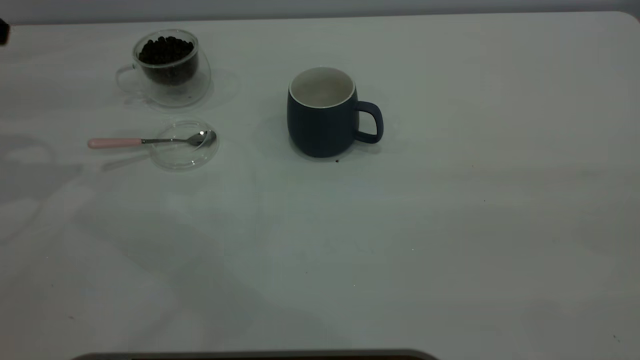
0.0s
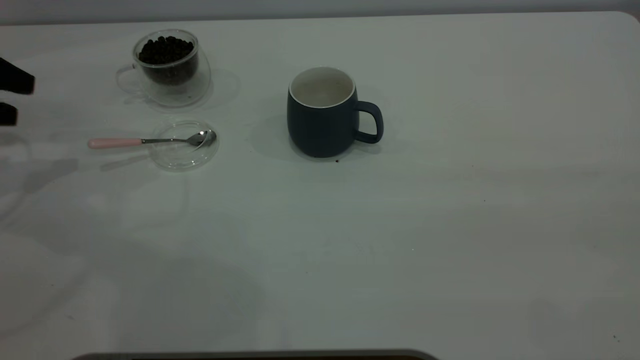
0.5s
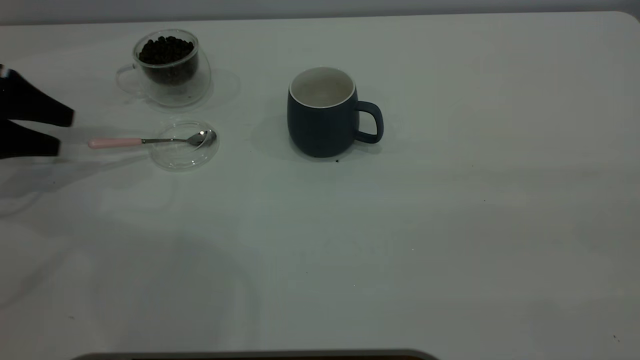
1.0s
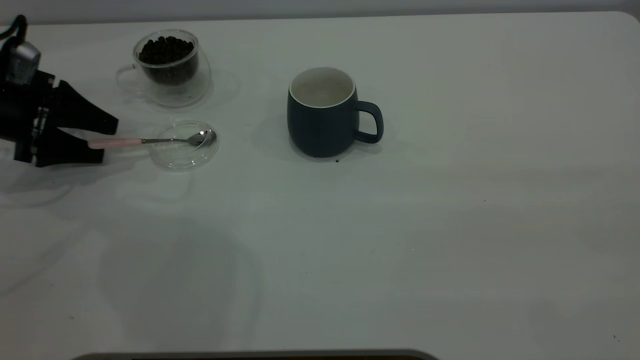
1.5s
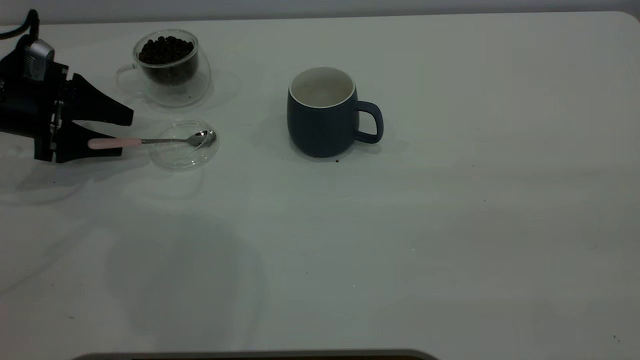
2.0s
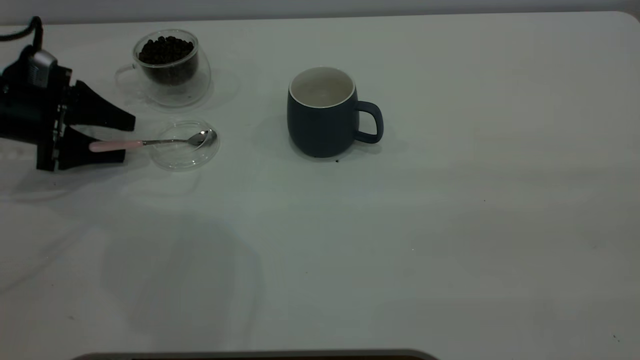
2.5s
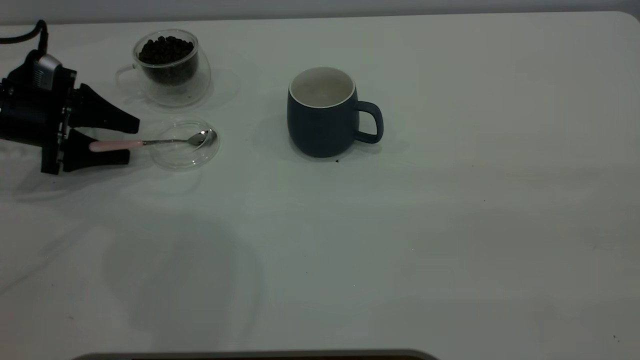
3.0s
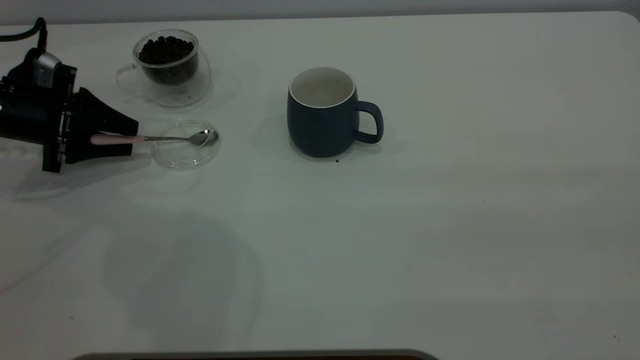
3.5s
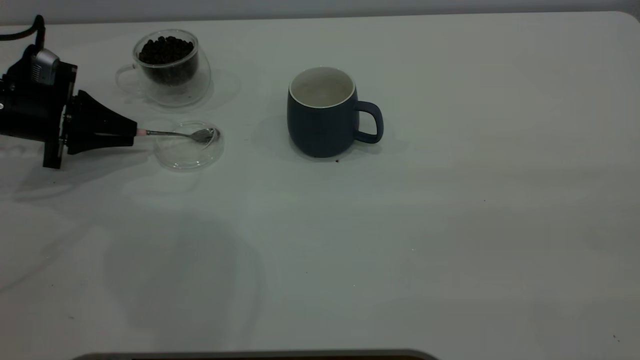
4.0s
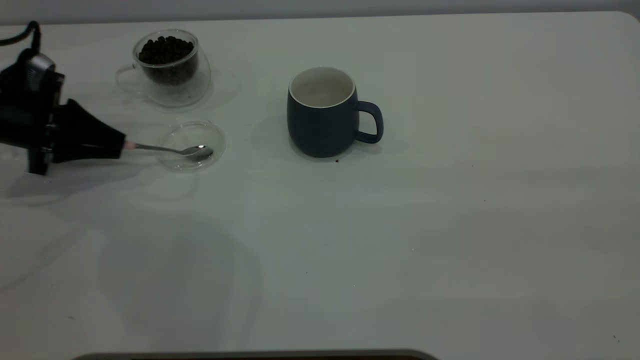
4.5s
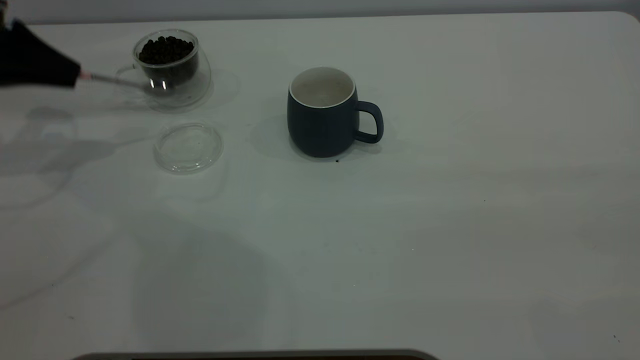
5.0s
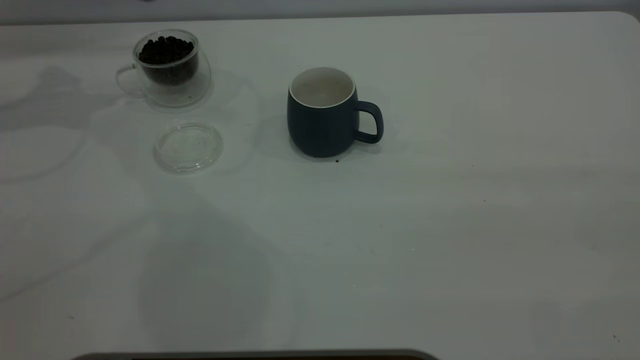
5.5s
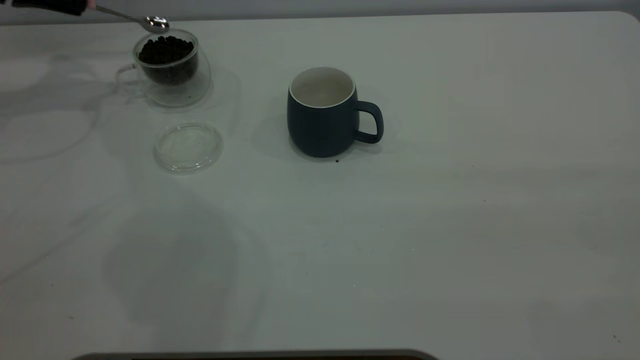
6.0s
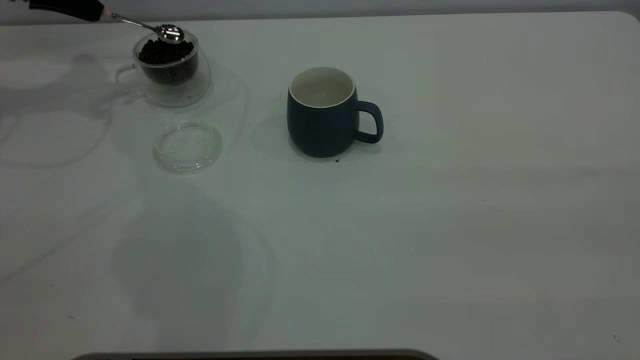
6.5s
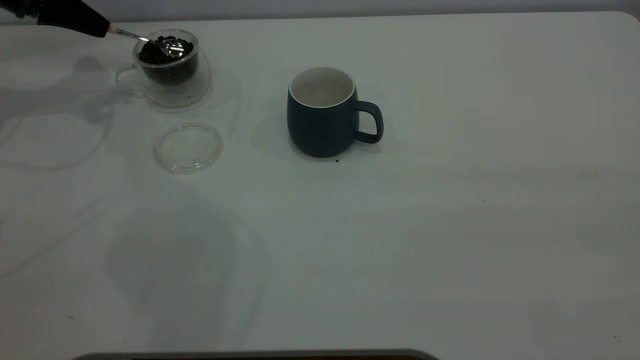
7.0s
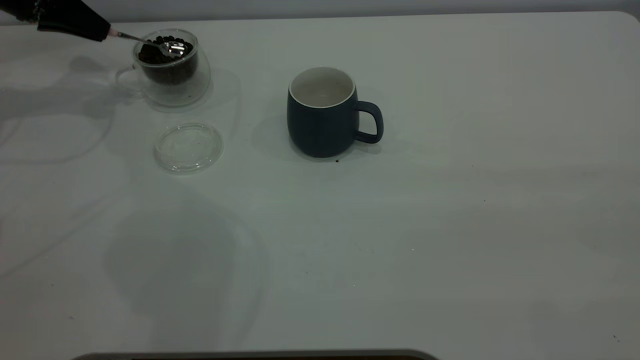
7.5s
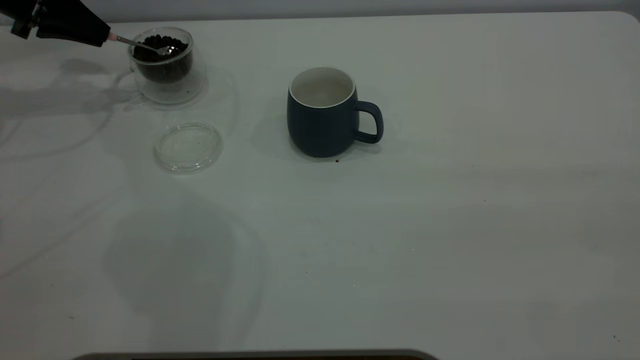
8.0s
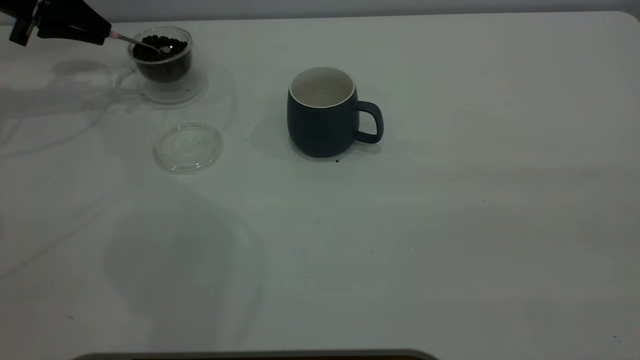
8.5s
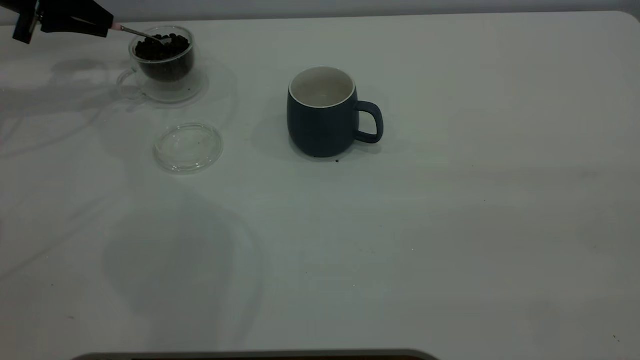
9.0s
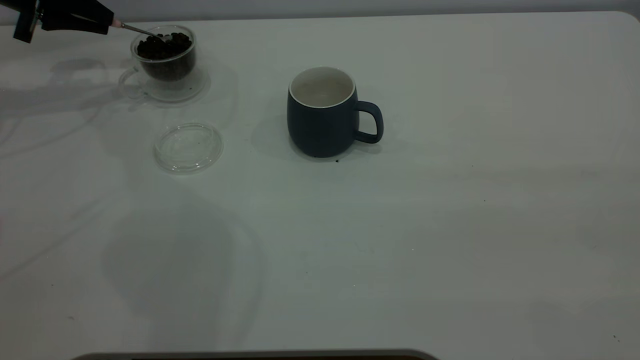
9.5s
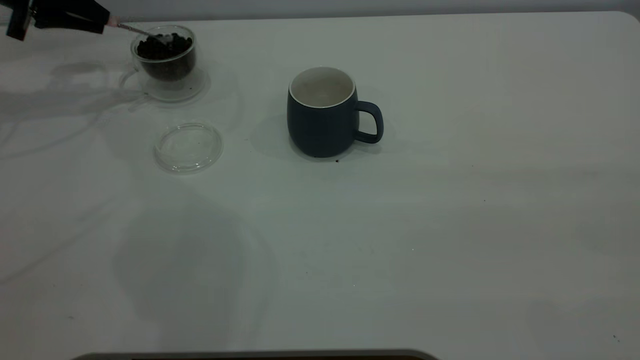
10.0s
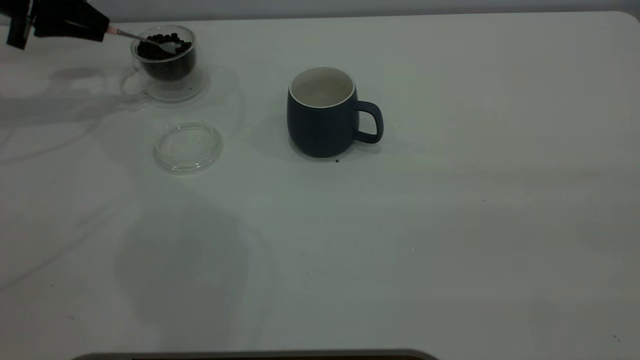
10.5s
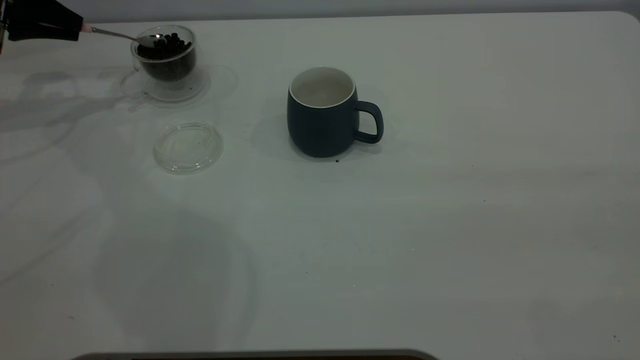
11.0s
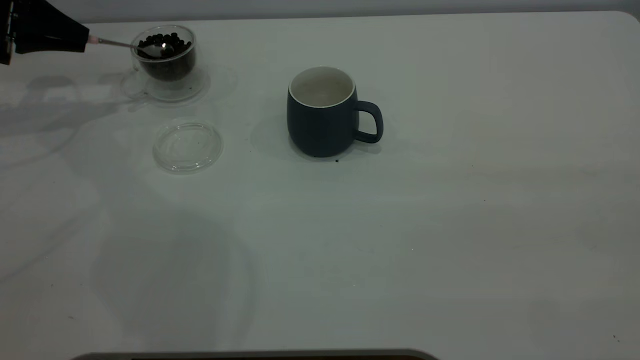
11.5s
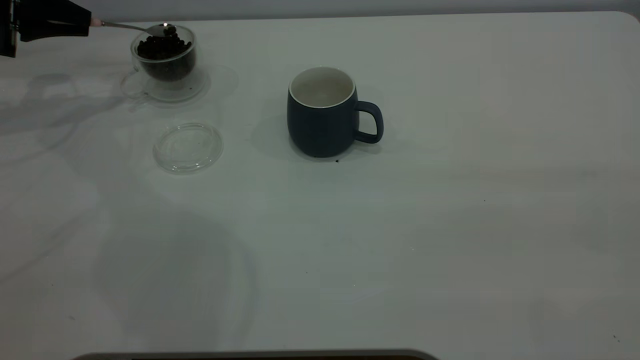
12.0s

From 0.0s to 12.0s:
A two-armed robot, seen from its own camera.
Task of the whole recording: the right gripper place the grey cup in the center of the table, the left gripper take the pink spoon from the cup lid and scoop out the coffee beans from the coffee cup and put them into the grey cup, the left gripper put the spoon back into the cup lid.
Step, from 0.0s to 4.5s: Pick up the spoon.
From 0.0s to 2.0s: The left gripper goes about 15 cm downward.
From 2.0s to 4.0s: The left gripper closes.
From 4.0s to 6.0s: The left gripper travels upward and forward by approximately 20 cm.
From 6.0s to 8.0s: The grippers make only small movements.
From 8.0s to 10.0s: There are only small adjustments of the grippers.
From 10.0s to 12.0s: The grippers stay close to where they were, moving slightly.

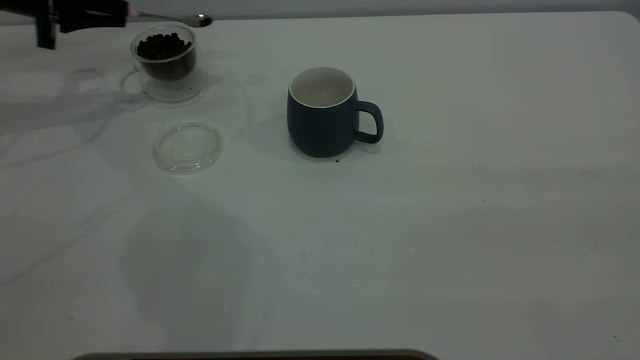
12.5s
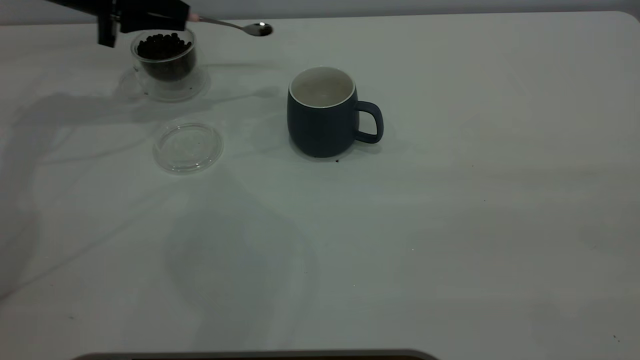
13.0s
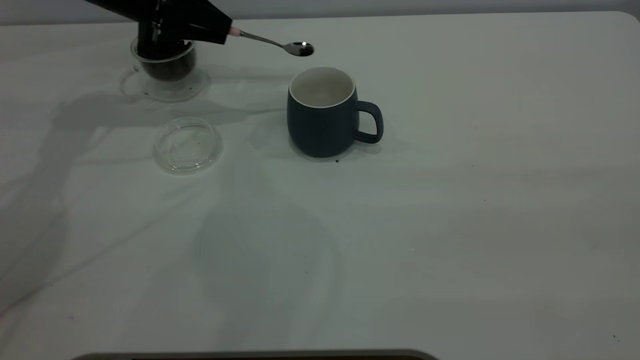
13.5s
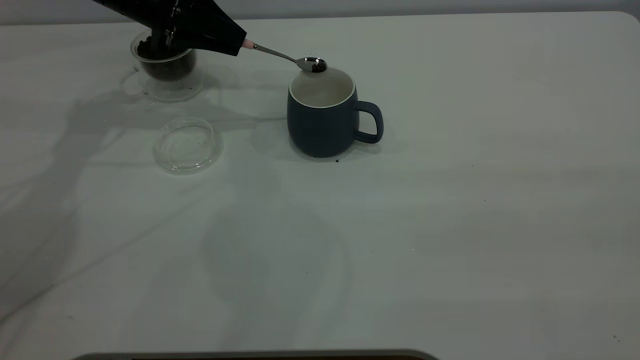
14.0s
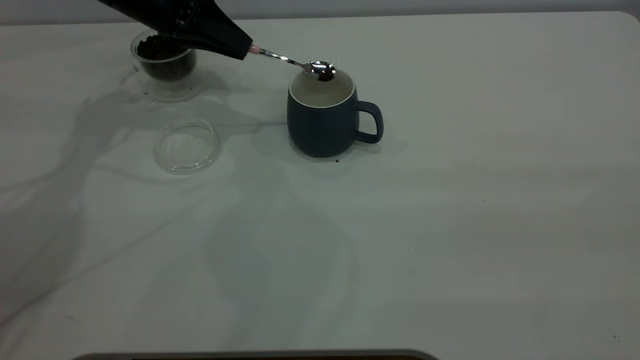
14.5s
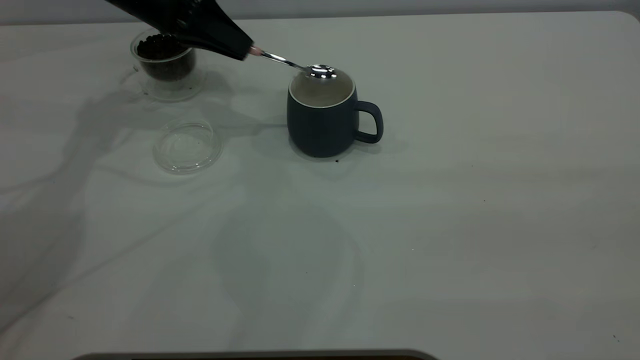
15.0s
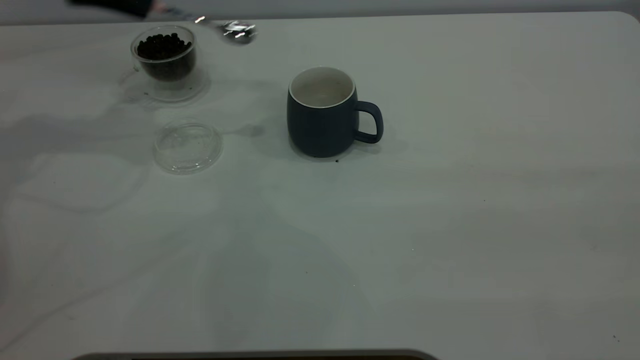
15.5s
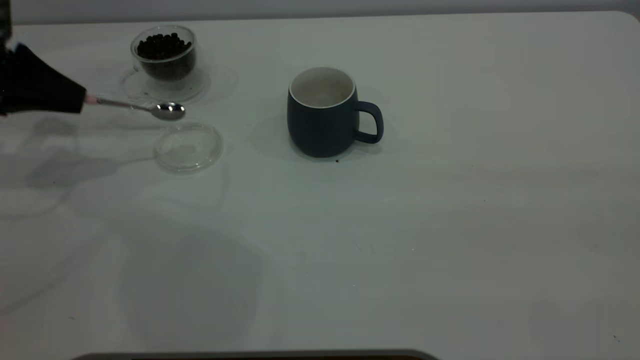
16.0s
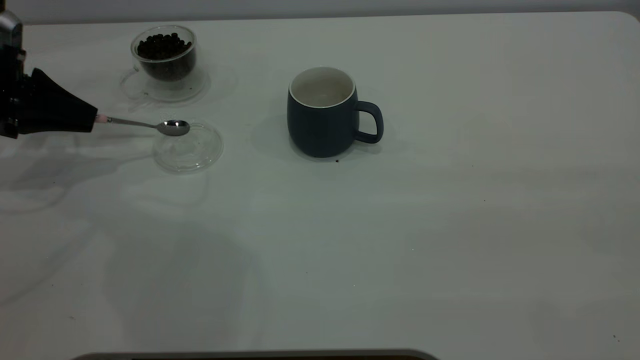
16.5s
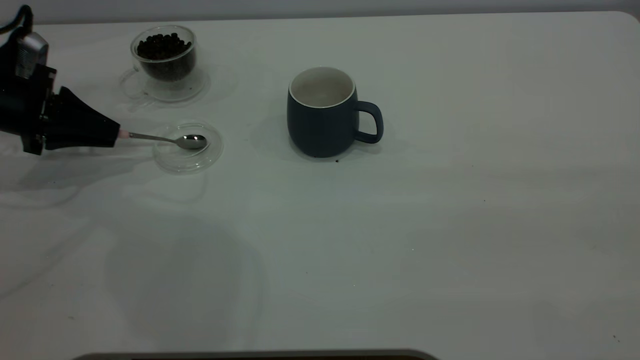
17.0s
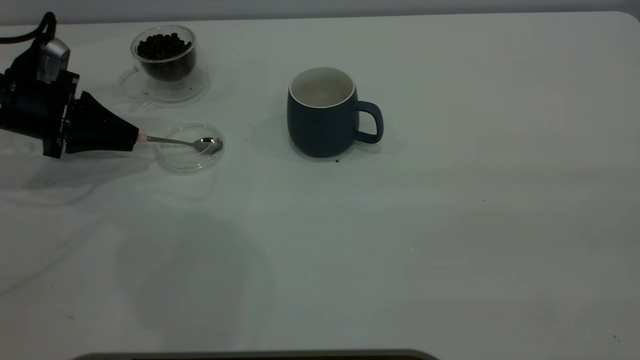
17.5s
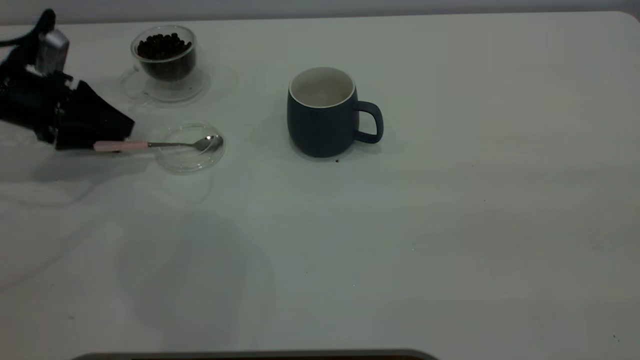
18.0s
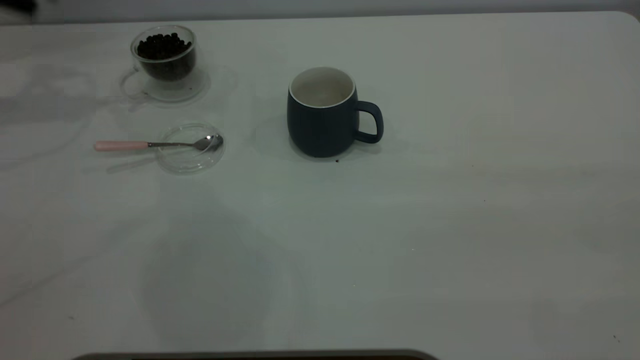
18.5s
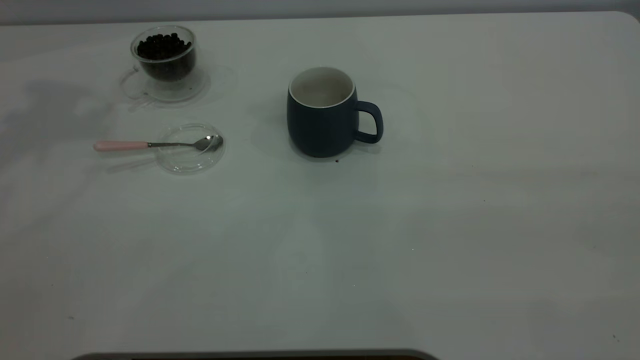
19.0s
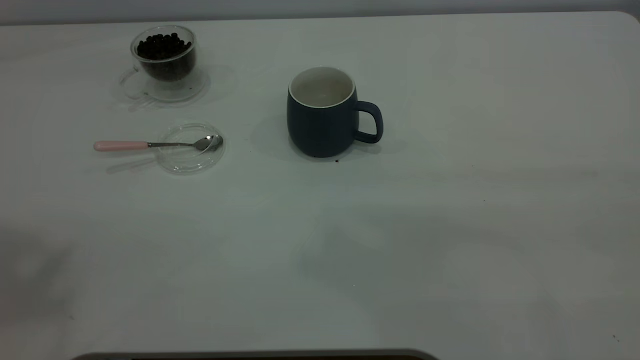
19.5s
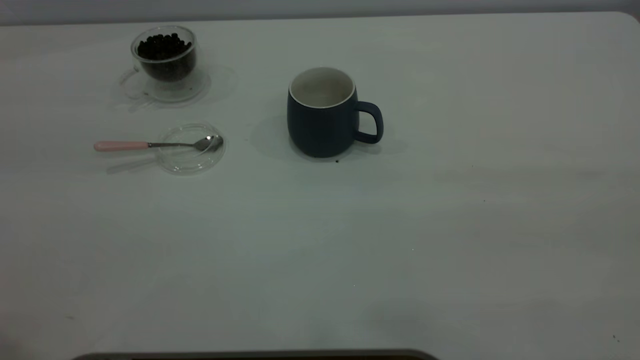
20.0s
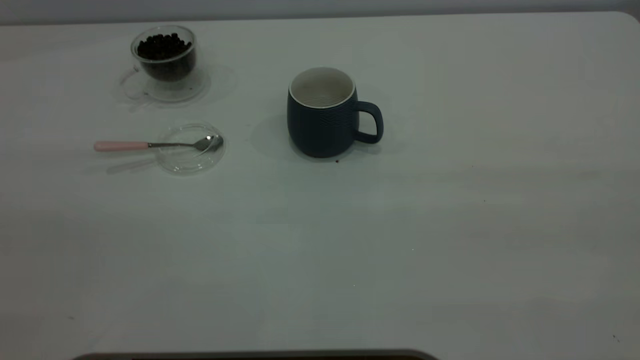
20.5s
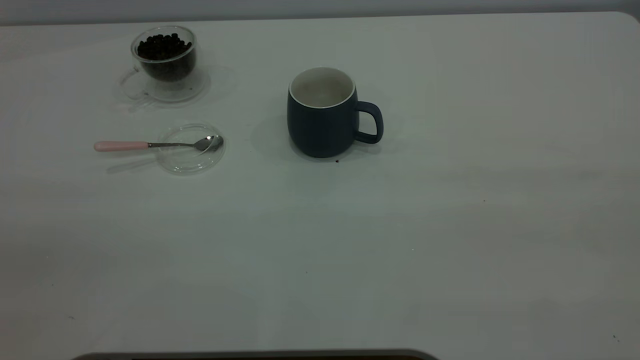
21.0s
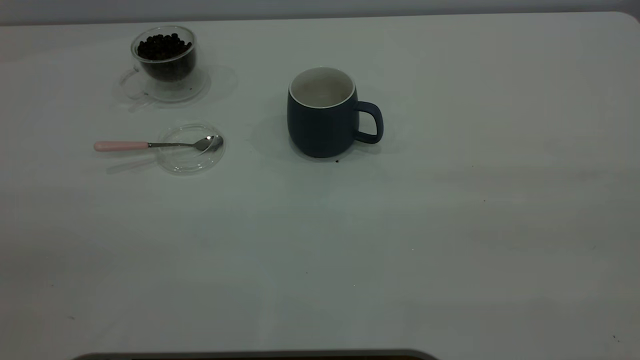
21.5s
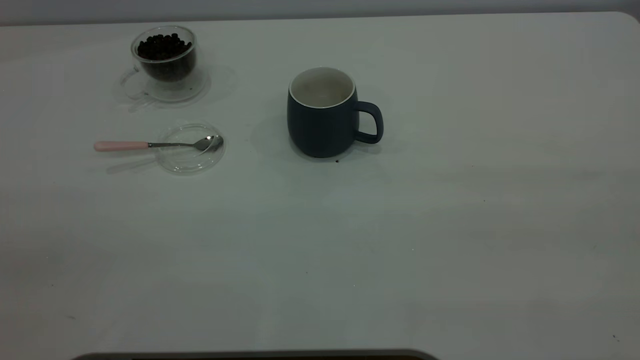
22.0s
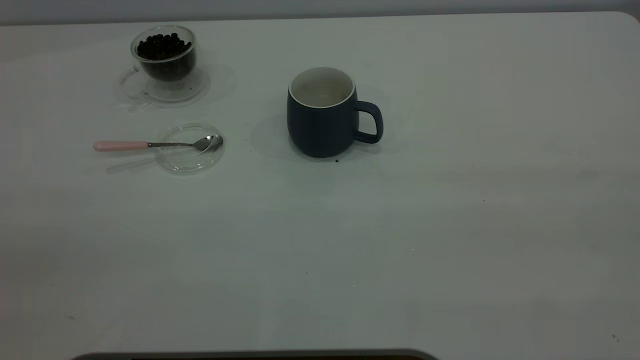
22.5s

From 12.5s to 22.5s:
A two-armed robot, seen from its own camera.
Task of the whole recording: the right gripper place the grey cup in the center of the table, the left gripper take the pink spoon from the cup lid and scoop out the coffee beans from the coffee cup and put them into the grey cup, the left gripper put the spoon back into the cup lid.
Step, from 12.5s to 15.0s: Scoop a spoonful of beans into the cup.
Step, from 15.5s to 18.0s: Place the spoon back in its original place.
From 12.5s to 14.5s: The left gripper travels to the right by about 15 cm.
From 14.5s to 16.5s: The left gripper is displaced to the left and backward by roughly 20 cm.
From 16.5s to 18.5s: The left gripper travels upward and forward by some 20 cm, and opens.
